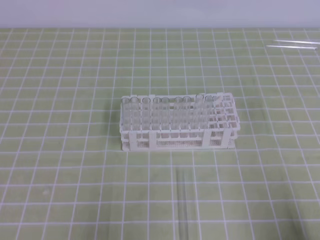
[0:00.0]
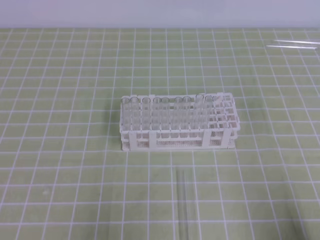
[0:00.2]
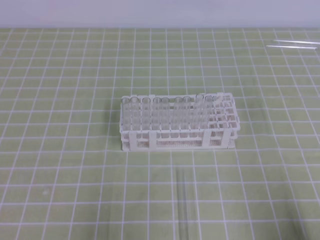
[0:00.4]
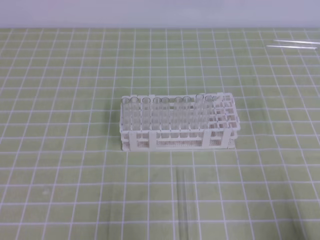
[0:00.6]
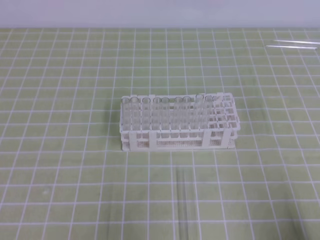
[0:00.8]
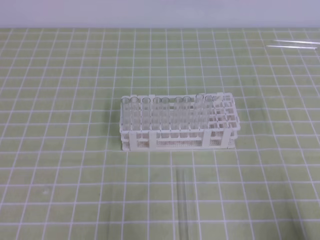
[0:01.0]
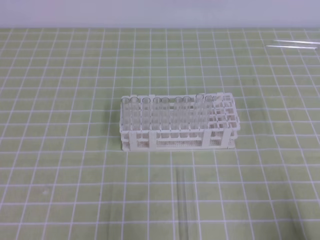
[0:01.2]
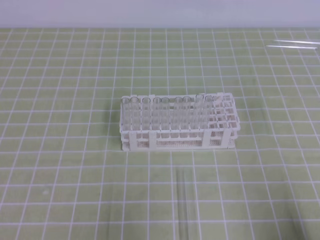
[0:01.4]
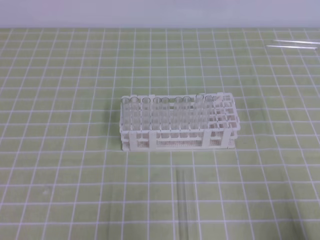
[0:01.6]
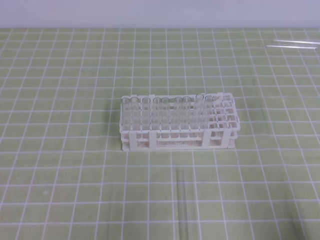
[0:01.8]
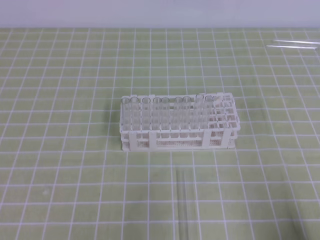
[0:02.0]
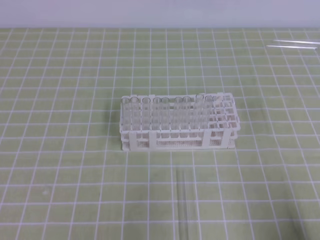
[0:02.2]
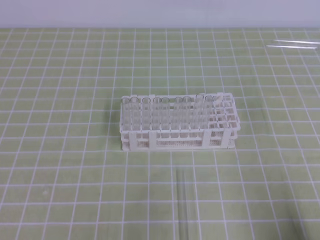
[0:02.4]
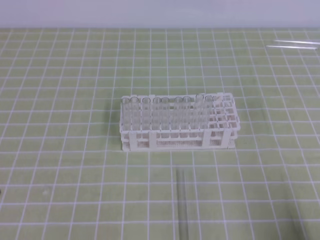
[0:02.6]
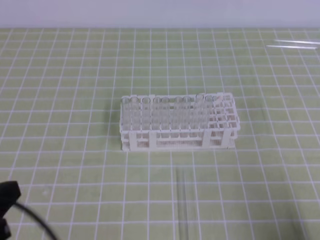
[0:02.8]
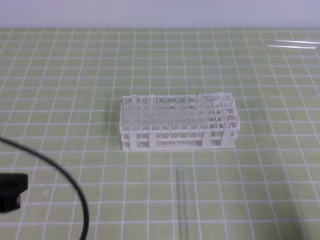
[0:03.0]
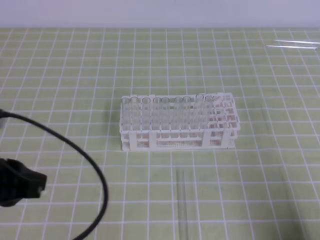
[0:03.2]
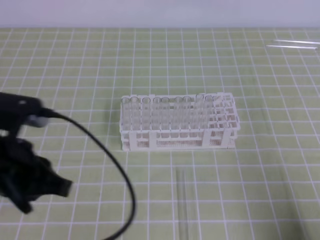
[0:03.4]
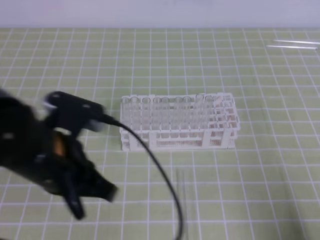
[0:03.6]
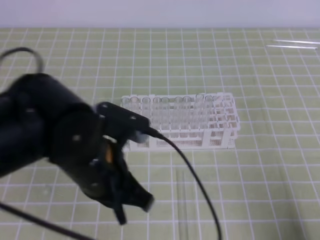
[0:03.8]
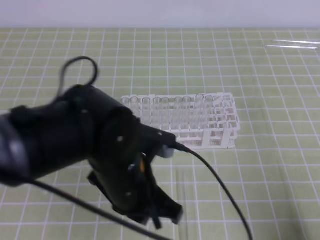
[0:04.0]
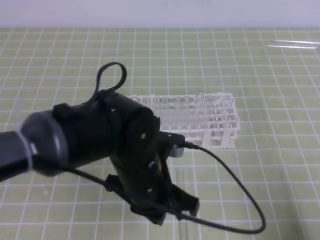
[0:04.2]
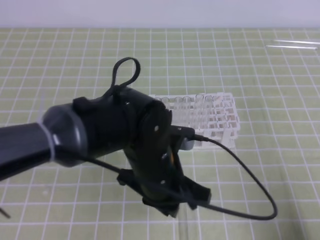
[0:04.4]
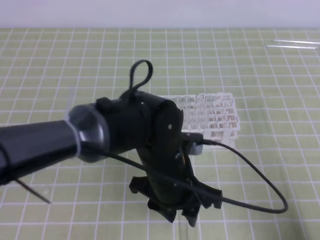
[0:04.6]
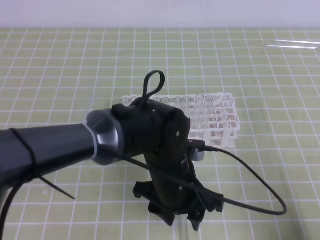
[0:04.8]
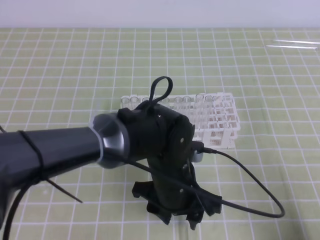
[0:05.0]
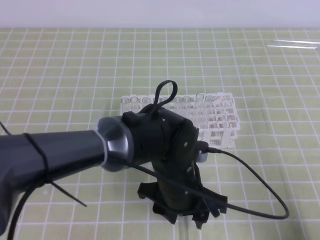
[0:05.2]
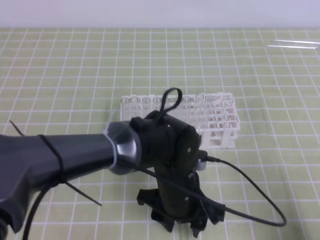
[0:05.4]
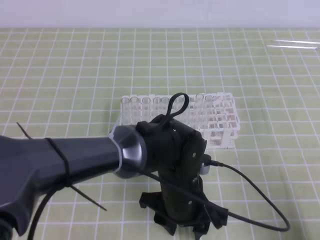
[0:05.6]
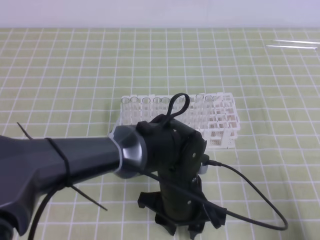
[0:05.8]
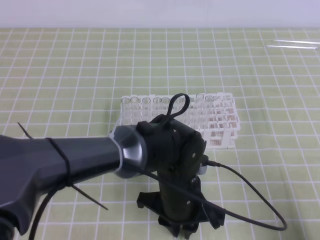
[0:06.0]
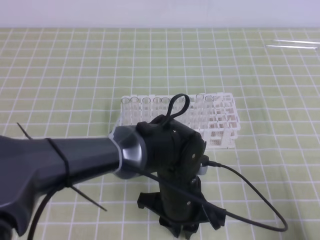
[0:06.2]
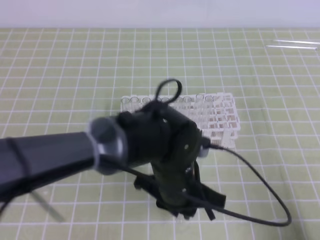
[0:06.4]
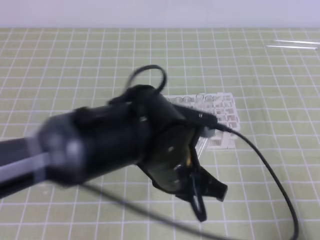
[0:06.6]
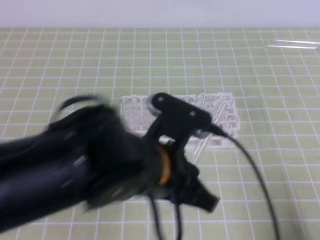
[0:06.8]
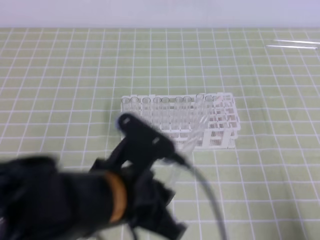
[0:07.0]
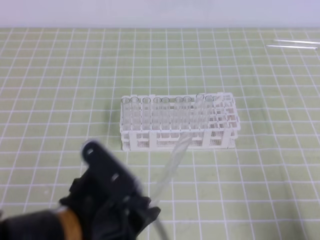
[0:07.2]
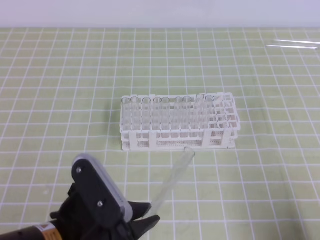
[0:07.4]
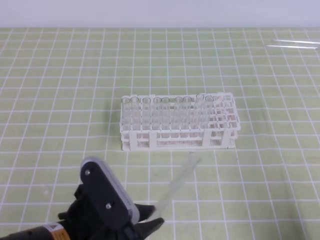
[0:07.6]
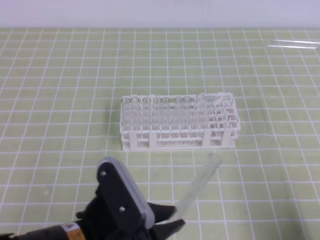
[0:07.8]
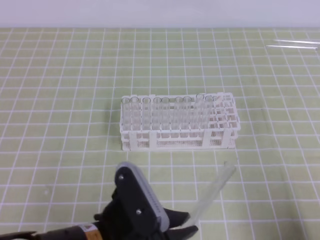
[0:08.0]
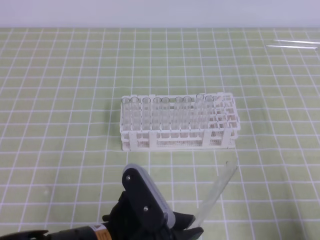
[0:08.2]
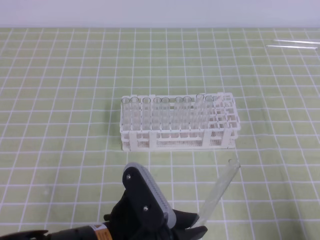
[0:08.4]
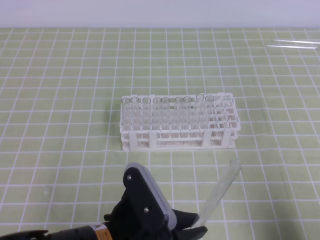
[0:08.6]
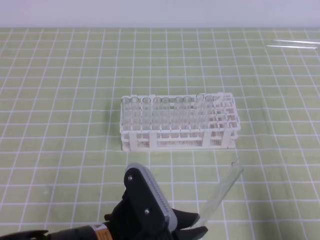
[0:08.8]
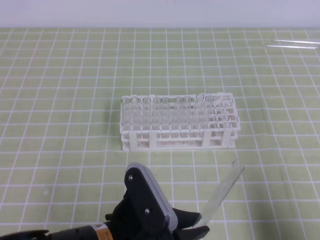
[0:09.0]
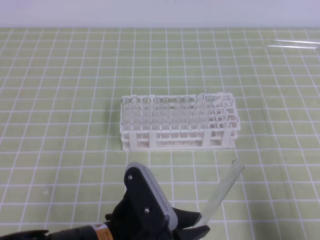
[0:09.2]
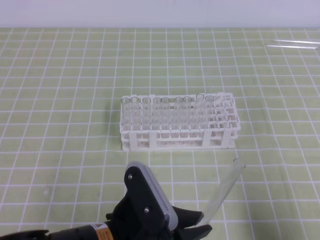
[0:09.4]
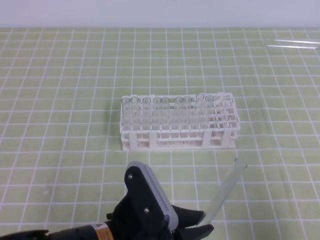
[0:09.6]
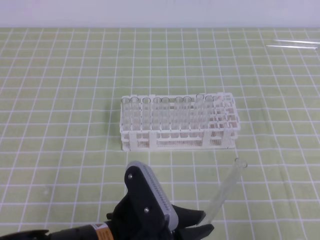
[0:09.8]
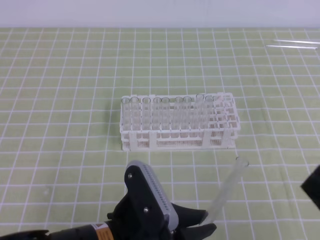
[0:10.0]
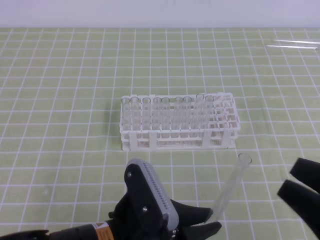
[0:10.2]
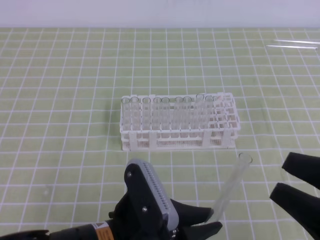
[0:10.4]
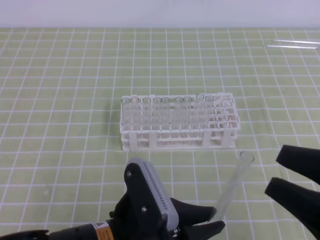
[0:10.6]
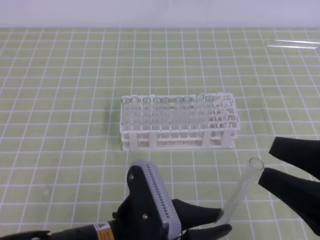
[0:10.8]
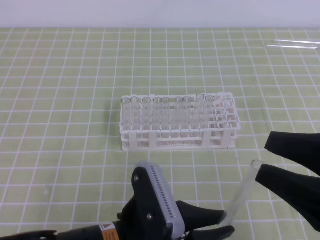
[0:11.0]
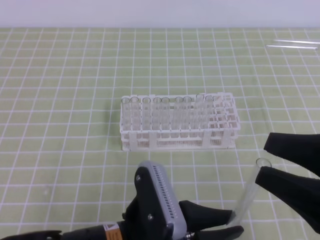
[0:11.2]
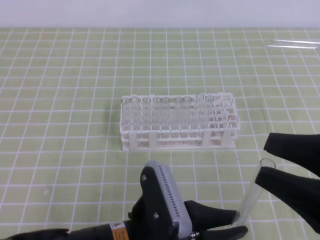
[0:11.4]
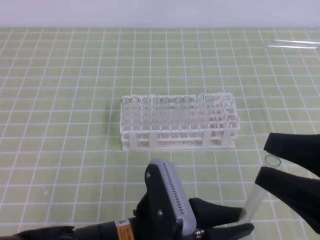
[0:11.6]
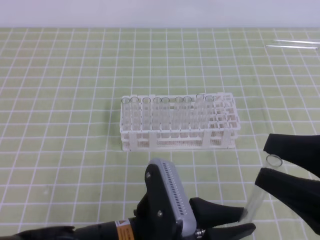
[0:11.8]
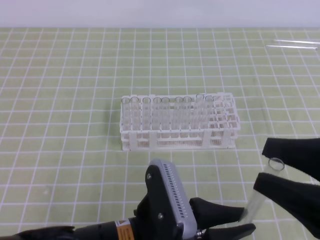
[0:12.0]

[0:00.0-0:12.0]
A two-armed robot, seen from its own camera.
0:01.6 to 0:03.0: The left gripper shifts some 10 cm upward and forward.
0:03.0 to 0:04.4: The left gripper moves to the right and forward, some 25 cm.
0:04.4 to 0:06.0: The left gripper travels downward by some 5 cm, and opens, then closes once more.
0:06.0 to 0:07.6: The left gripper is displaced to the left, backward and upward by approximately 20 cm.
0:09.0 to 0:10.4: The right gripper travels upward and to the left by about 10 cm, and opens up.
0:10.4 to 0:12.0: The grippers make only small movements.

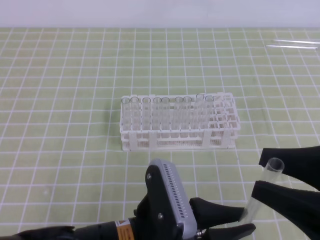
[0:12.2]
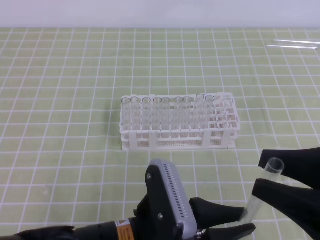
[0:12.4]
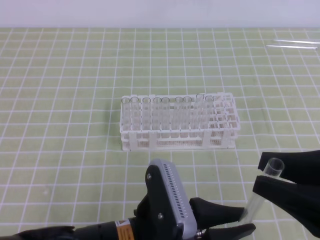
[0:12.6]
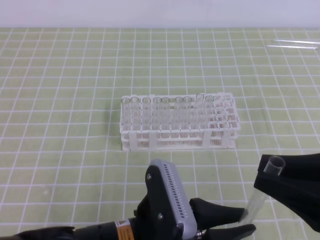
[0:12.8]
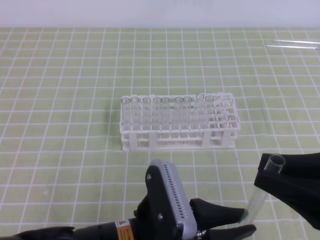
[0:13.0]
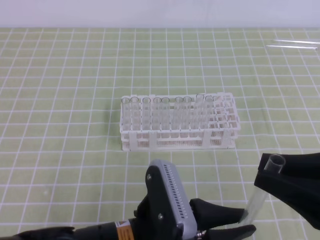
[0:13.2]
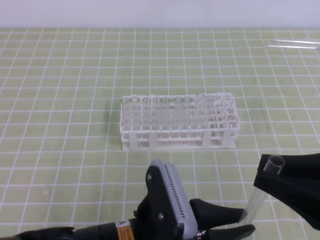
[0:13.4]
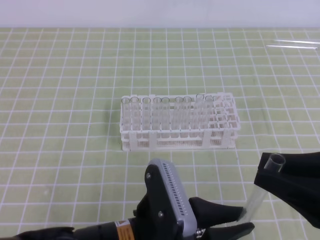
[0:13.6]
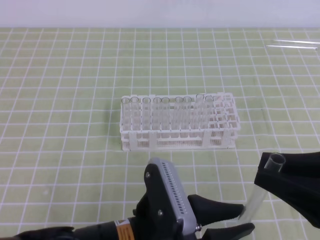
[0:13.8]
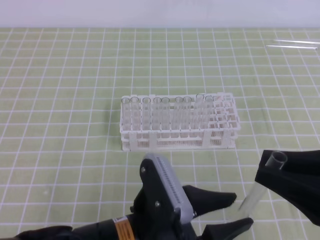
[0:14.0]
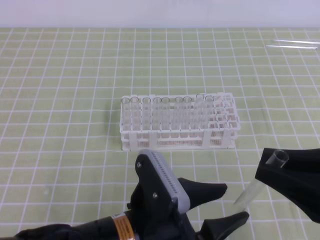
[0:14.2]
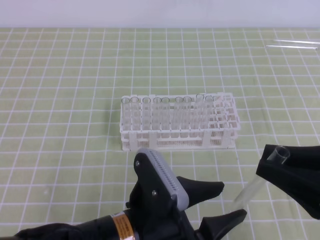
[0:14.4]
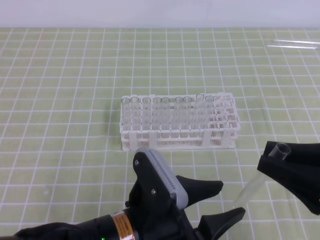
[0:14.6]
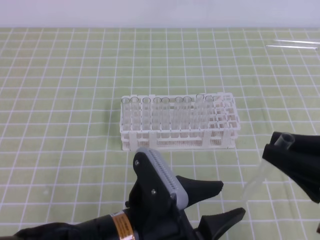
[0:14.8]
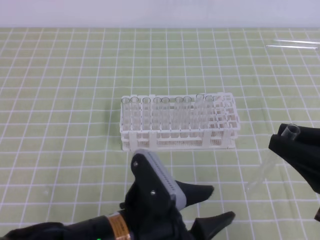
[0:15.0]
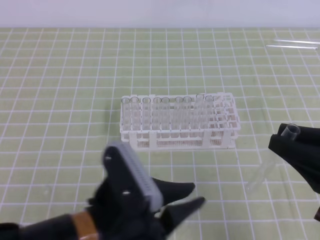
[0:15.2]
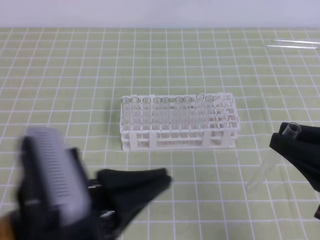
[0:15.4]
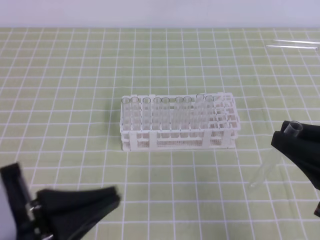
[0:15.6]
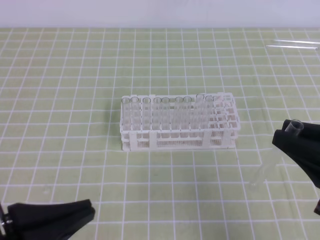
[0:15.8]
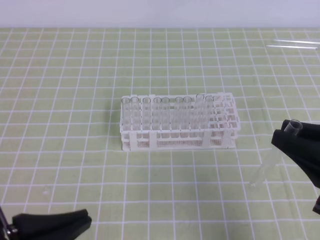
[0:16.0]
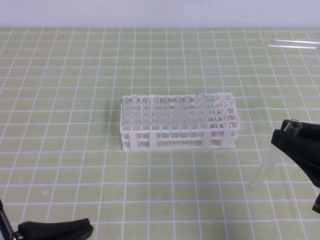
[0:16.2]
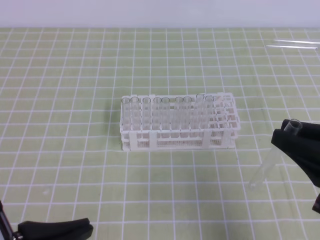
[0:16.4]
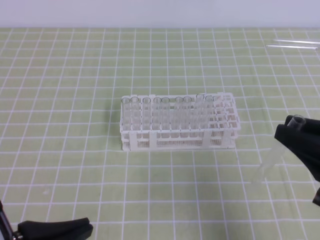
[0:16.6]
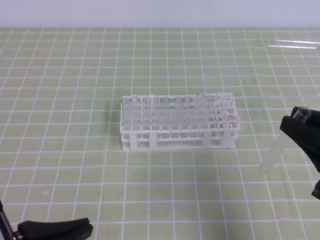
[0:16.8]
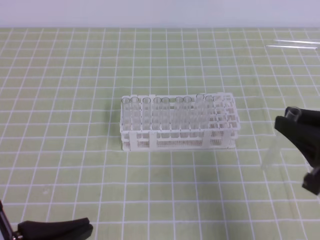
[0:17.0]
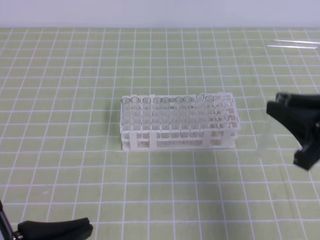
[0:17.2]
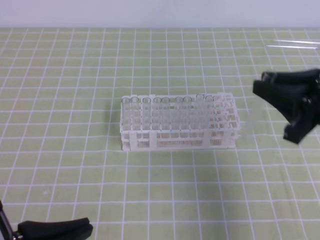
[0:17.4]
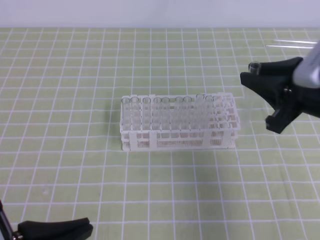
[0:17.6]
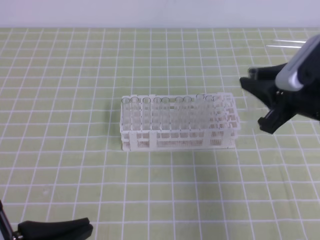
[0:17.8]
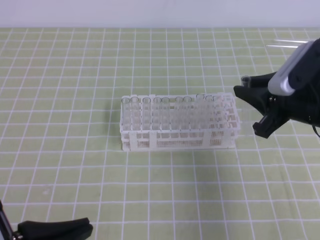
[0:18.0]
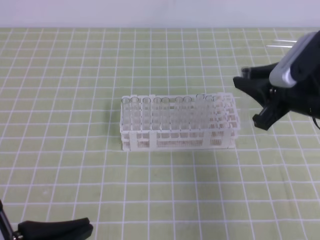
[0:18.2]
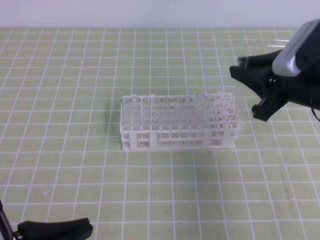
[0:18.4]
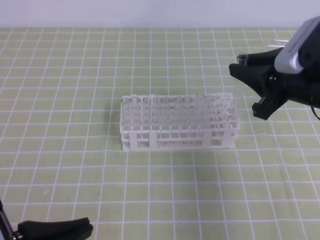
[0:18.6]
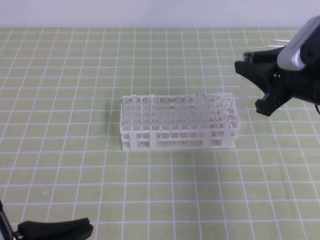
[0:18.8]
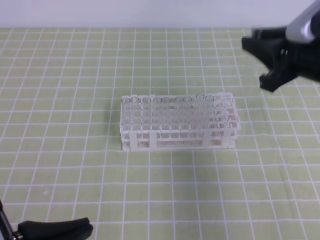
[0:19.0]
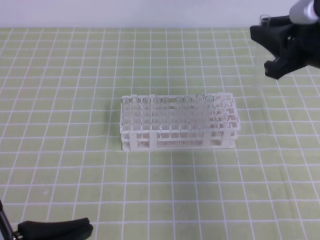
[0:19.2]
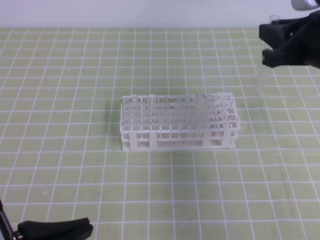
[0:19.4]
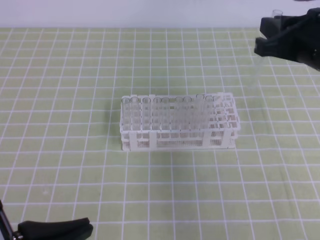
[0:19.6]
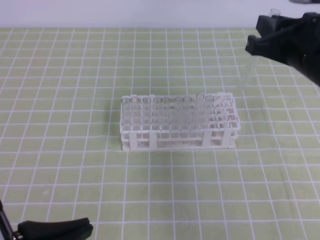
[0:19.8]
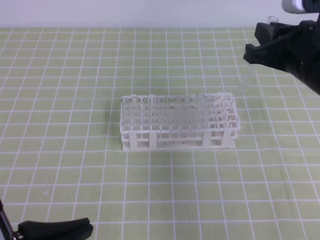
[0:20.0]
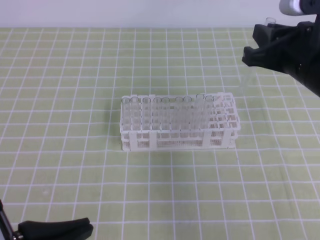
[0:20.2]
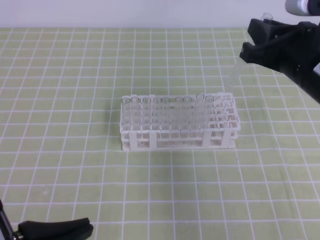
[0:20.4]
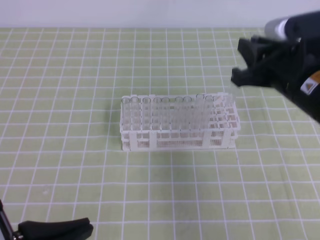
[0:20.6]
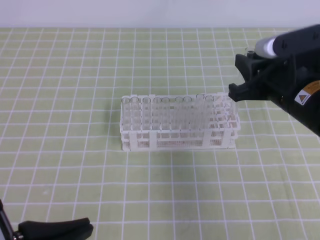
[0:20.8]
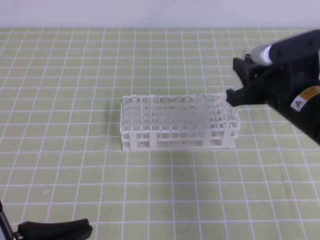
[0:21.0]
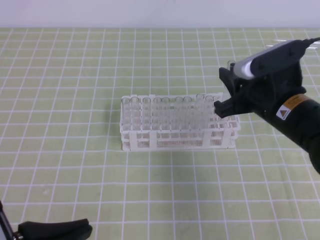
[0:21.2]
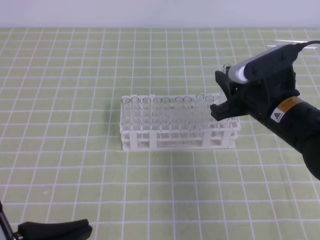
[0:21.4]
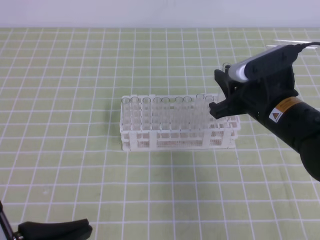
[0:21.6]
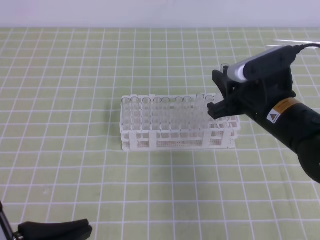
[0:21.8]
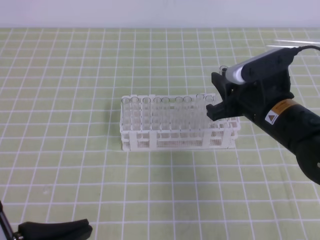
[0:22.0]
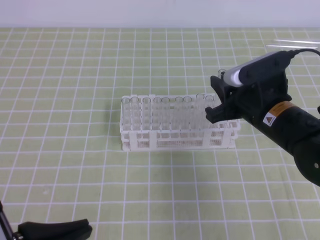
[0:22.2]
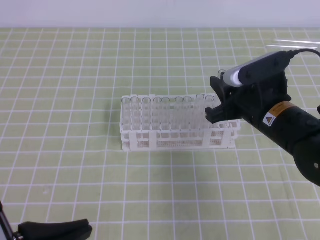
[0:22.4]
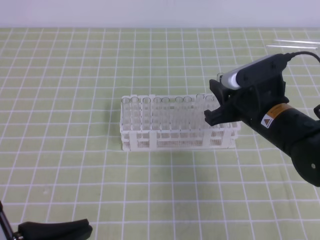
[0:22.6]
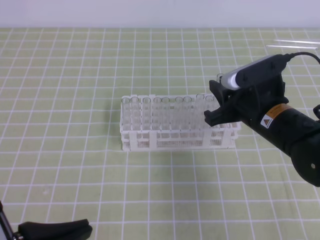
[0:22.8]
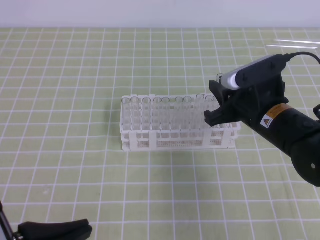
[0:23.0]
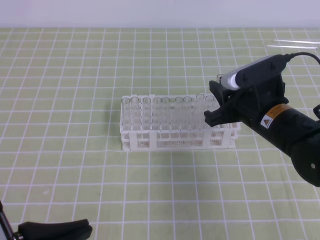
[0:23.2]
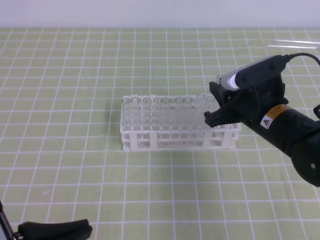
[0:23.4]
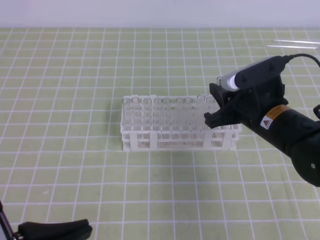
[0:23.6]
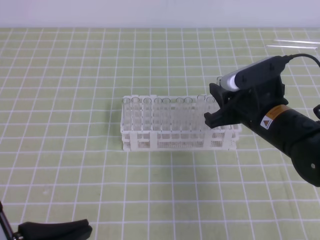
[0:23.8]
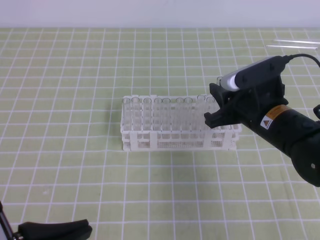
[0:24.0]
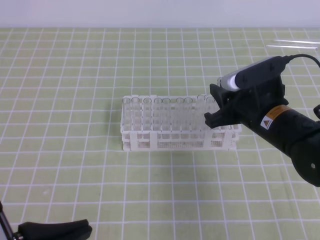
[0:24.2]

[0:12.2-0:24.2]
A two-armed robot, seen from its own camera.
0:12.2 to 0:13.8: The right gripper closes up.
0:13.8 to 0:15.2: The left gripper ends up about 5 cm from where it was, and opens, then closes once more.
0:15.2 to 0:16.6: The left gripper goes roughly 15 cm to the left and backward, and closes up.
0:16.6 to 0:18.2: The right gripper shifts about 15 cm forward.
0:18.2 to 0:19.8: The right gripper heads upward, covering roughly 5 cm.
0:19.8 to 0:21.2: The right gripper is displaced downward by some 5 cm.
0:21.2 to 0:22.6: The grippers move only a little.
0:22.6 to 0:24.2: The two grippers keep their place.
